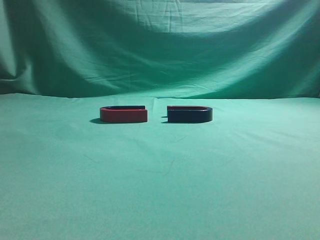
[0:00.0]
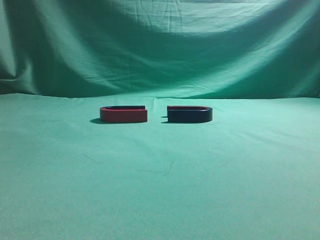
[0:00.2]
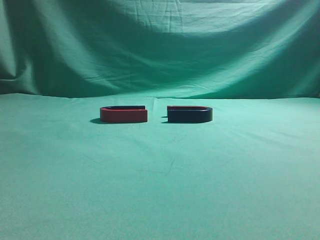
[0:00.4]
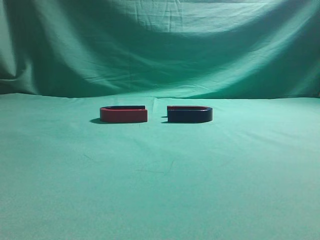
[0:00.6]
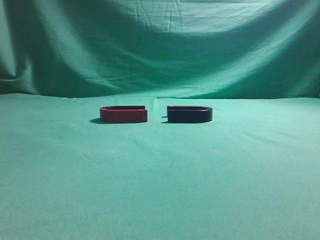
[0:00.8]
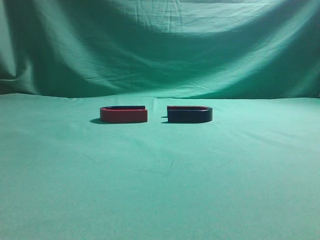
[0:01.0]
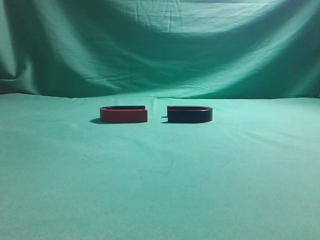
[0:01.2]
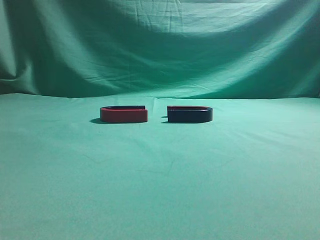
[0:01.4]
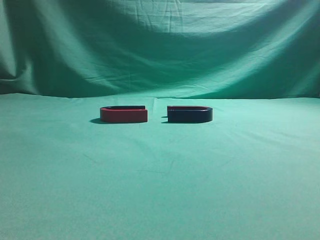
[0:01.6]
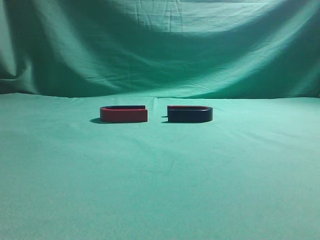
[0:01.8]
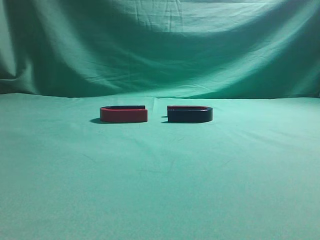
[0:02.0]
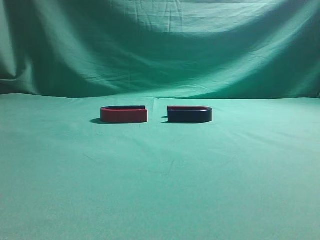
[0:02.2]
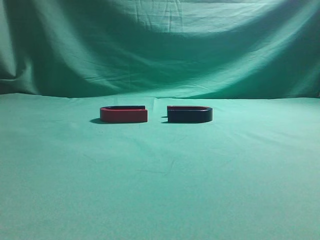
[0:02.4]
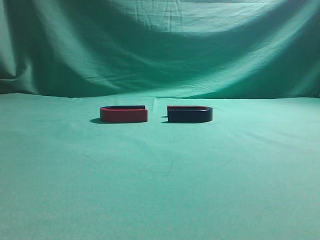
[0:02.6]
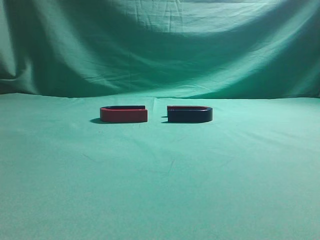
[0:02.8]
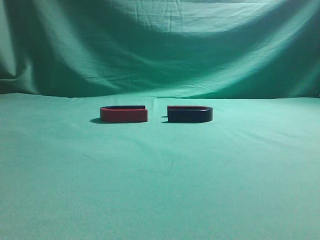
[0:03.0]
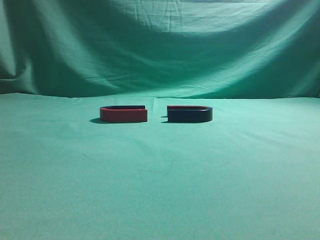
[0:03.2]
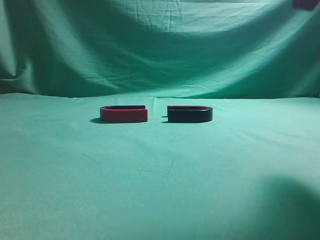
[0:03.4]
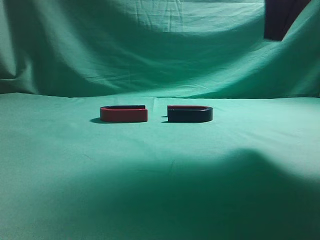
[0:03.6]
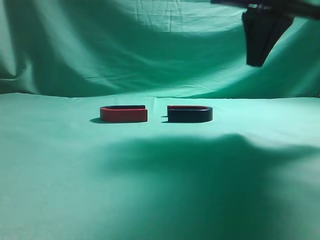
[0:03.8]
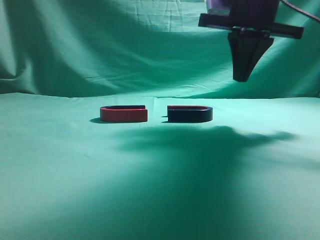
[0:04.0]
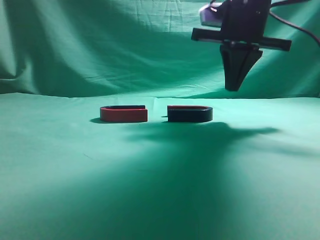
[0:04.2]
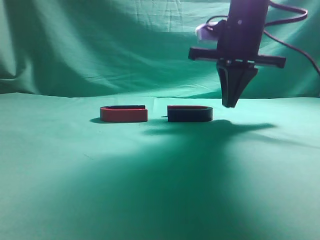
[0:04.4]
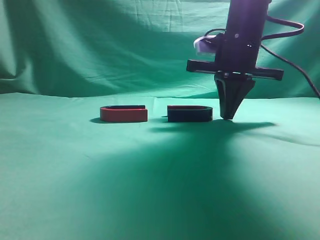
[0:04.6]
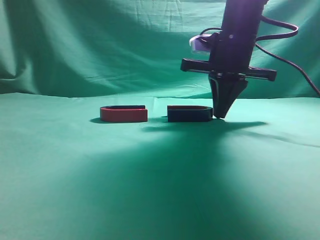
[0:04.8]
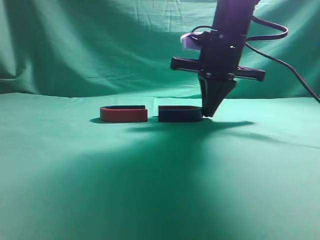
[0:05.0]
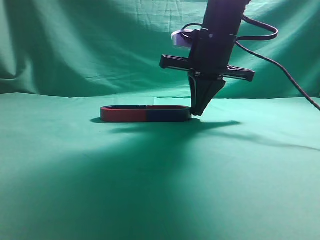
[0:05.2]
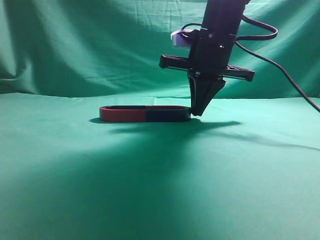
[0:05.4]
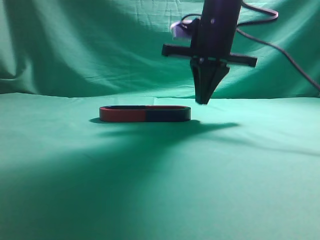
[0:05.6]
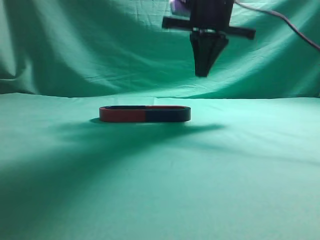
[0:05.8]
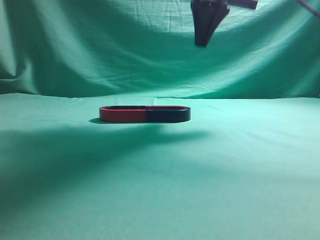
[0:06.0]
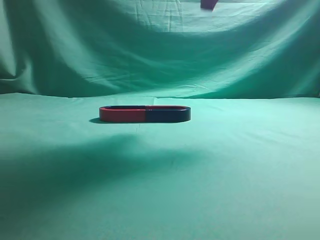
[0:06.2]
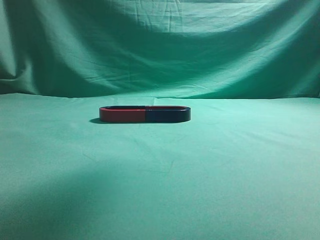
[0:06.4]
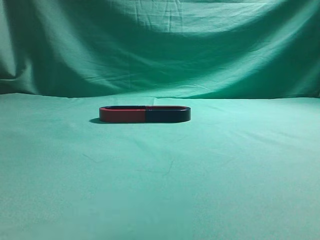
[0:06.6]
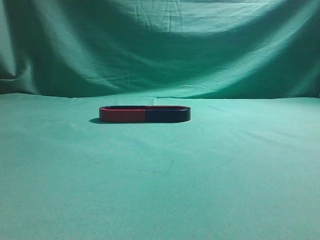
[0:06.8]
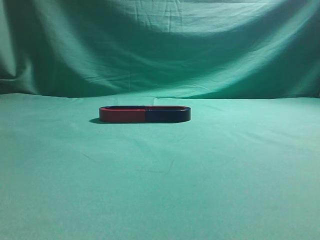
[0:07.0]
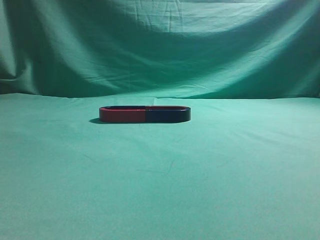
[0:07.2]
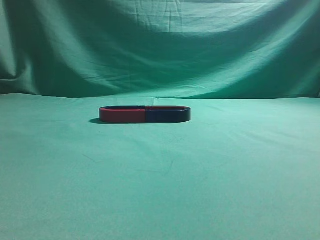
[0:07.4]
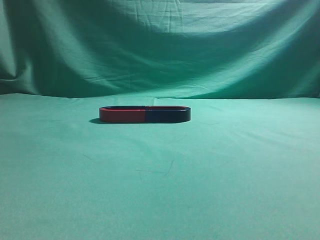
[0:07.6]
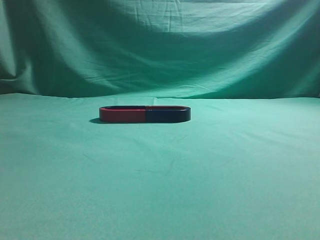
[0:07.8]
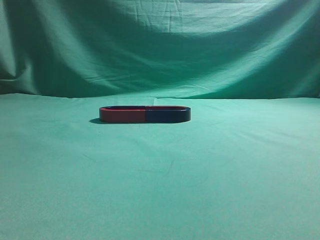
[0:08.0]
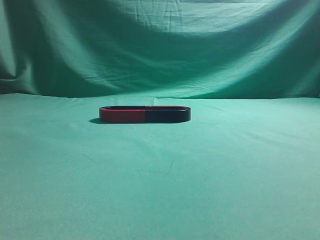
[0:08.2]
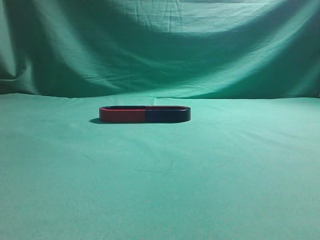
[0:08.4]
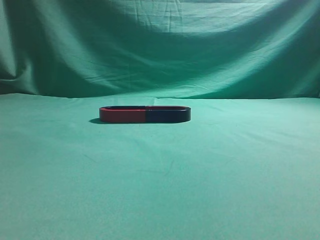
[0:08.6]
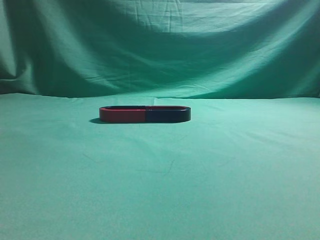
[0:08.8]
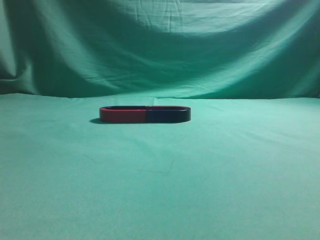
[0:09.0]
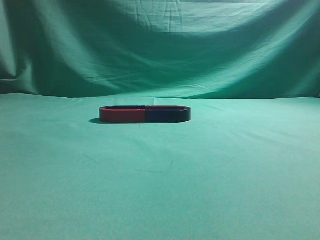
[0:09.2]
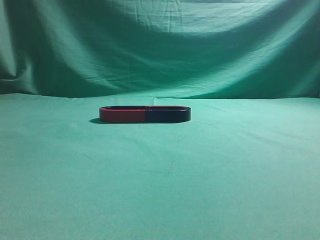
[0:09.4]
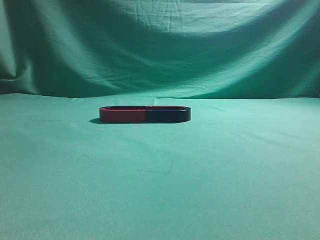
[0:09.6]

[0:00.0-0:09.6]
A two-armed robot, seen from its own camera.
Task of the whole recording: push the magnet on the table from its original position to another position.
Step, 0:00.0 to 0:05.4: Push the magnet on the right to connect the magnet on the left.
0:03.2 to 0:04.8: The right gripper moves forward, downward and to the left, about 25 cm.
0:04.8 to 0:06.4: The right gripper moves upward and backward, some 25 cm.
0:06.4 to 0:08.0: The right gripper travels backward and to the right by approximately 30 cm.
